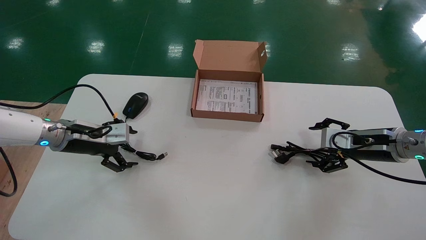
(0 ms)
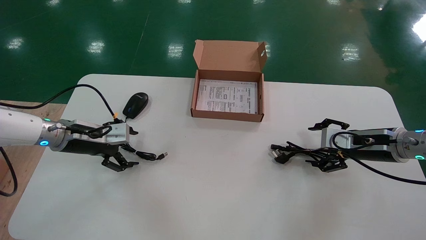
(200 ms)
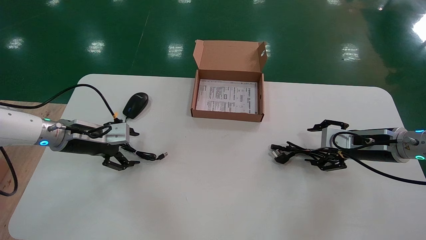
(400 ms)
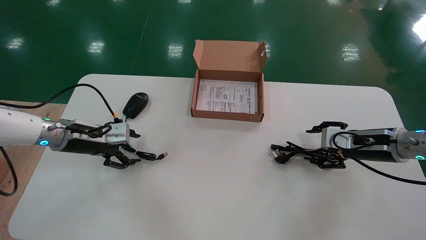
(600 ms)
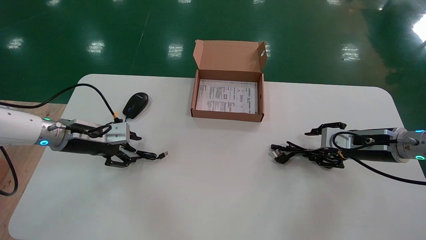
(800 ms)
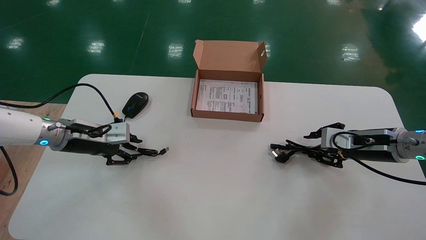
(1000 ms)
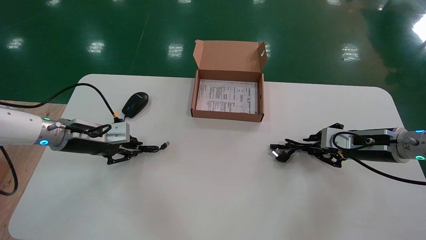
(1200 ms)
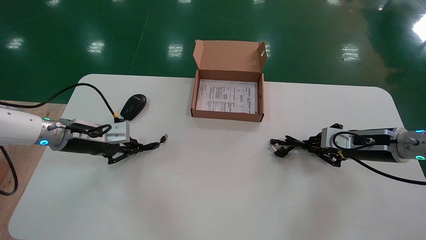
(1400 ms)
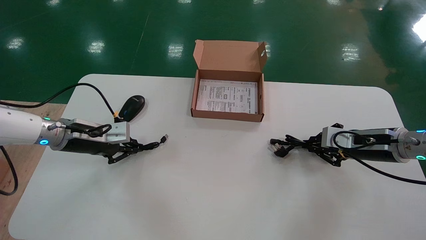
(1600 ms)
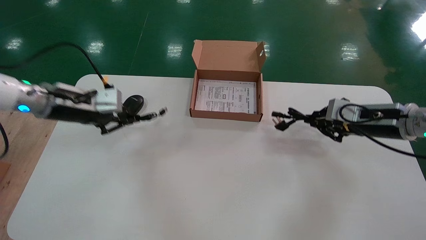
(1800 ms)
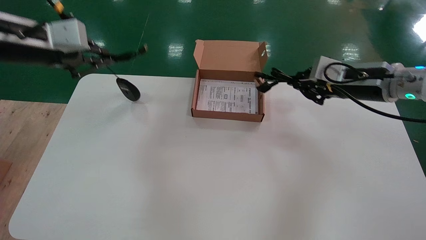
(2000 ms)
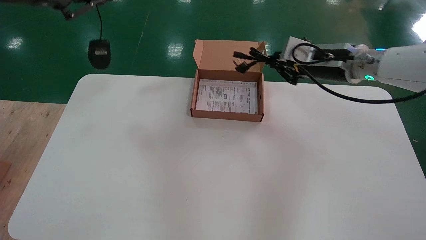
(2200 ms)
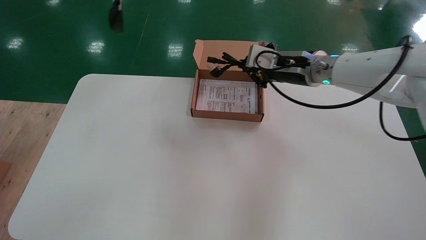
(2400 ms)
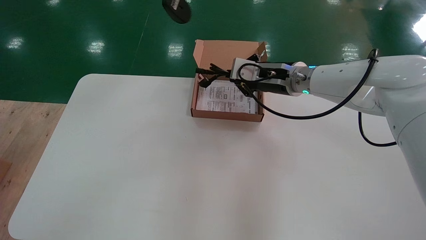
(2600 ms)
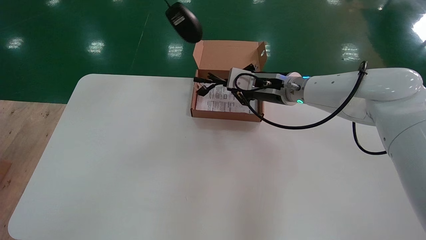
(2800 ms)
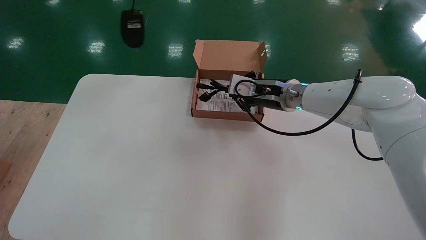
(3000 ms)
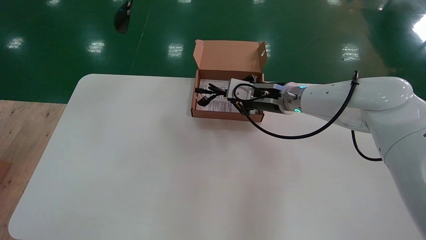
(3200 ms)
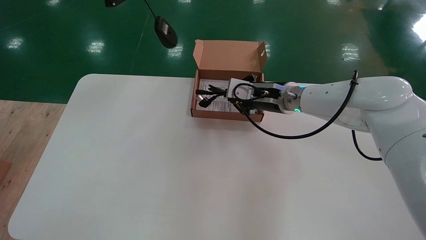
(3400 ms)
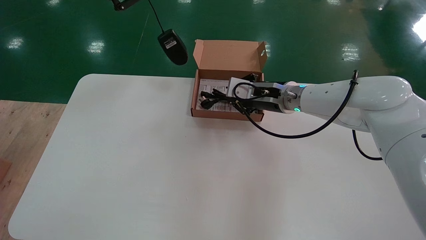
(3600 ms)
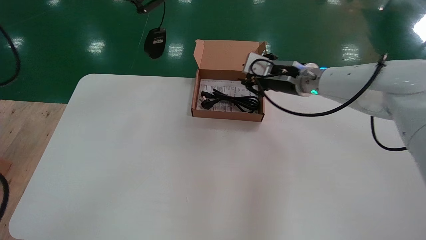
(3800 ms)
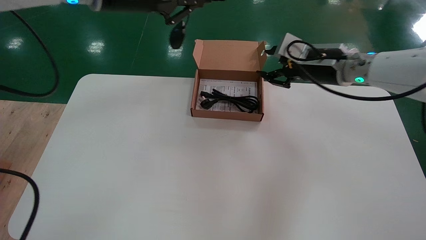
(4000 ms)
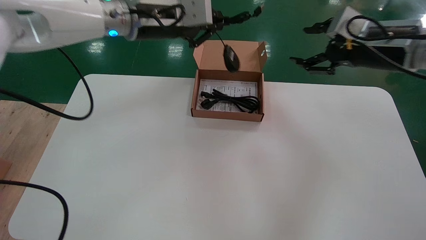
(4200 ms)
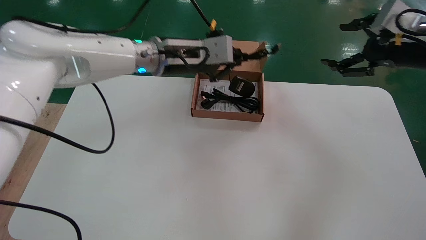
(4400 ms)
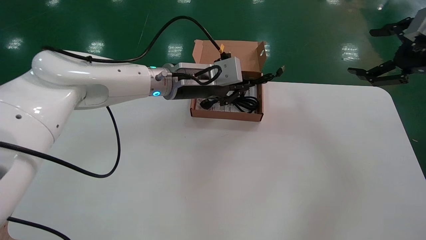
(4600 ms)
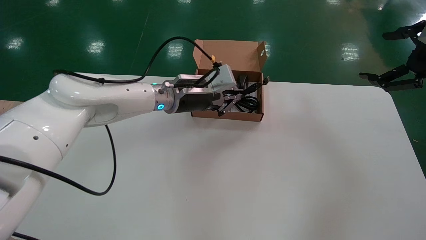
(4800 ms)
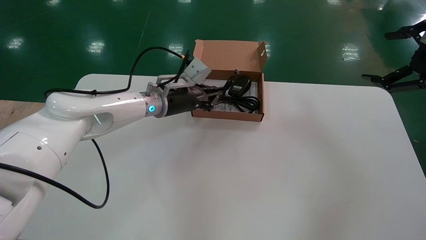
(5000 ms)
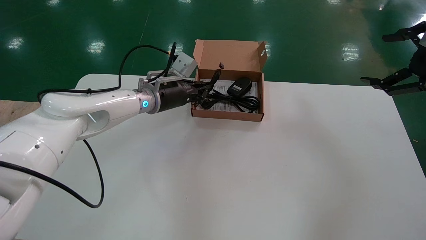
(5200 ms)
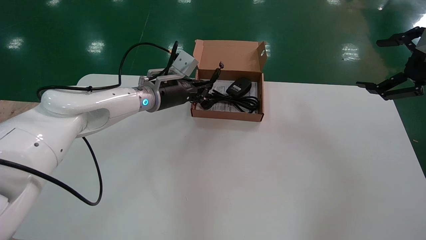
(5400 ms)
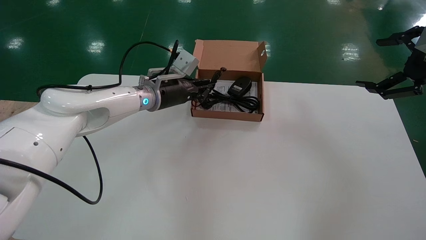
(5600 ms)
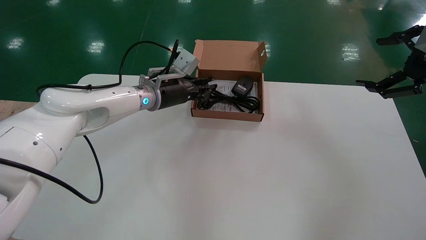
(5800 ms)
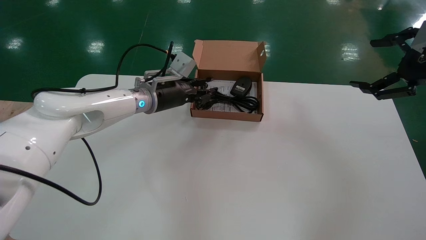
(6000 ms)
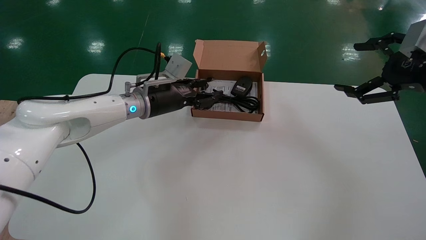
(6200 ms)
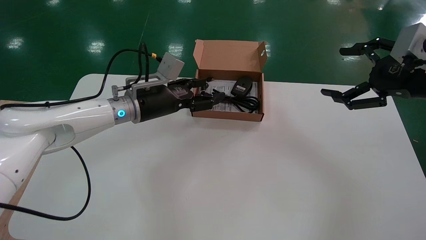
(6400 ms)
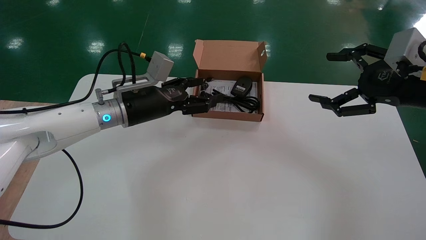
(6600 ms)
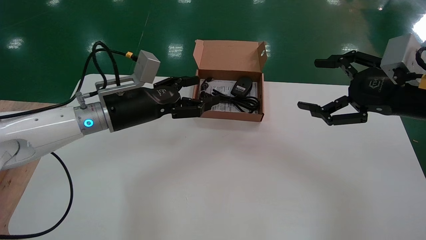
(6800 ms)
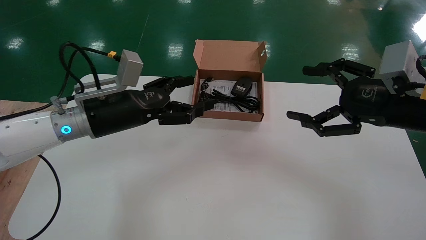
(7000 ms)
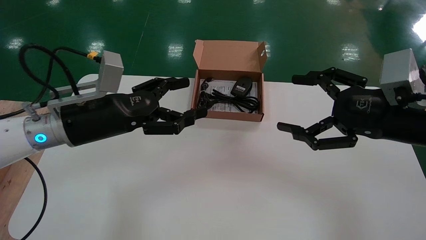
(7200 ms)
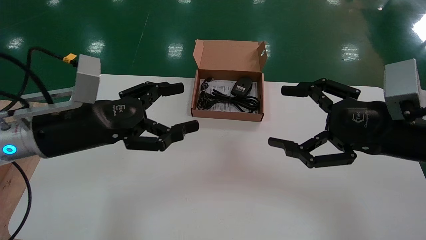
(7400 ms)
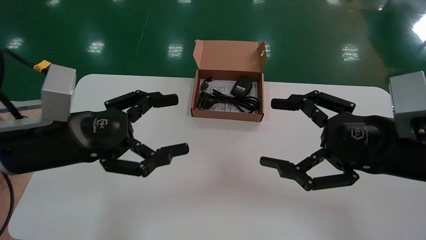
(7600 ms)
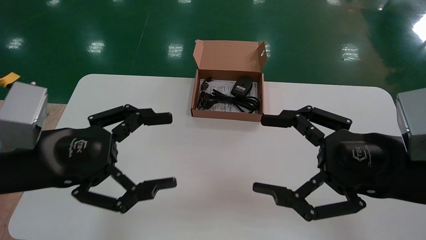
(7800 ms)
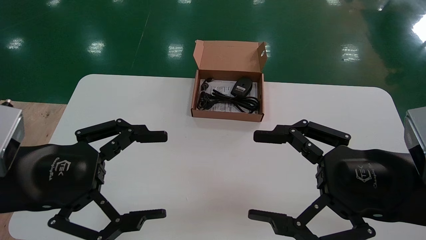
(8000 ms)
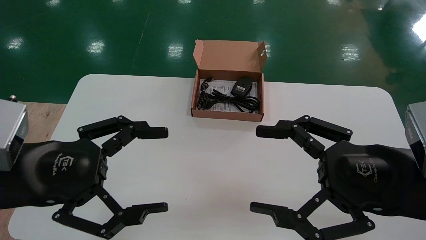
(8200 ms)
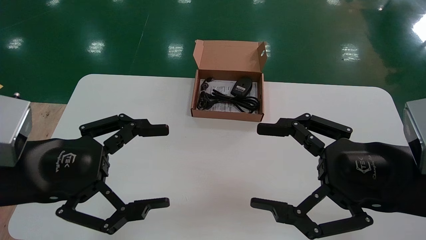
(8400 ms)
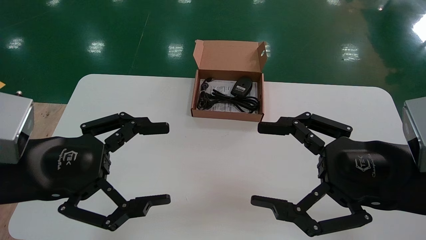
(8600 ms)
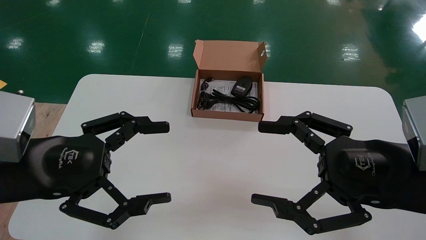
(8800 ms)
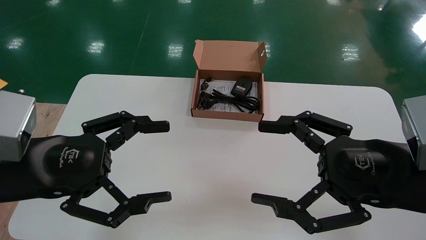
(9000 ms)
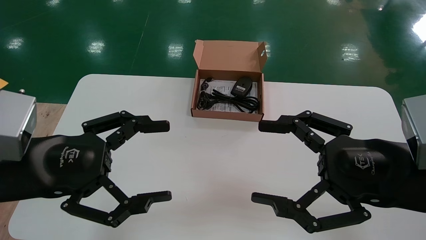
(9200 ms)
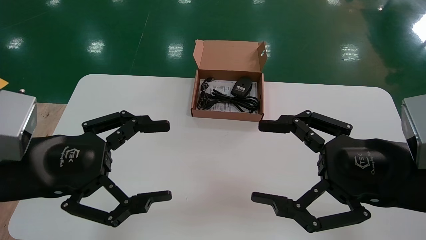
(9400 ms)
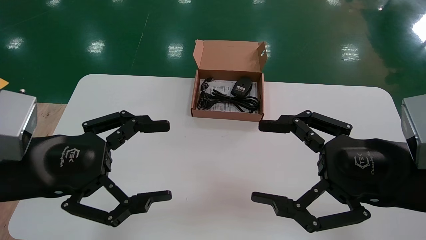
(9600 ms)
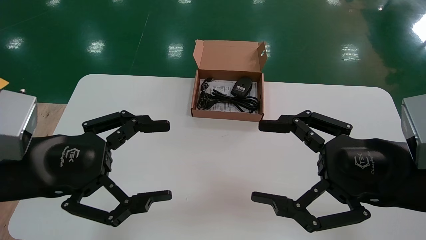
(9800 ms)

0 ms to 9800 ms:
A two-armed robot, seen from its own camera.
Step, 1800 ms to 6000 ms: Place the mouse and power cord into the box.
0 ms to 1400 ms: The left gripper closes its fingers. The right gripper closes.
1400 ms to 2800 ms: The left gripper goes some 35 cm upward. Meanwhile the right gripper heads to the left and upward, covering some 25 cm.
2800 ms to 4200 ms: The left gripper goes approximately 20 cm to the right, downward and forward. The right gripper heads to the right, upward and backward, covering some 20 cm, and opens.
4200 ms to 5600 ms: The right gripper moves to the right and backward, about 15 cm, and opens. The left gripper heads downward and forward, covering roughly 15 cm.
5600 ms to 7000 ms: The left gripper is displaced backward and to the left by approximately 15 cm, and opens up, while the right gripper goes roughly 10 cm to the left and downward.
7000 ms to 8400 ms: The right gripper shifts some 10 cm backward and to the left. The left gripper is displaced backward by roughly 15 cm.
8400 ms to 9800 ms: Both grippers stay put.

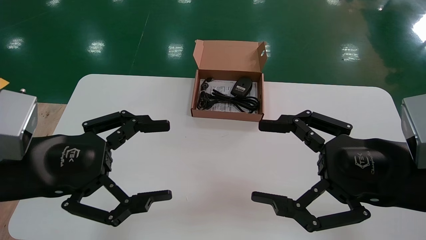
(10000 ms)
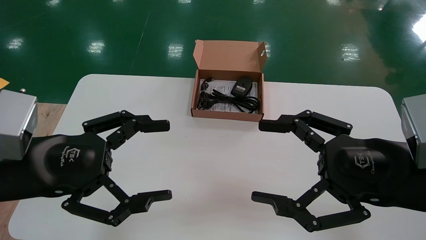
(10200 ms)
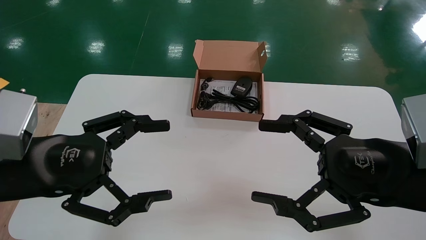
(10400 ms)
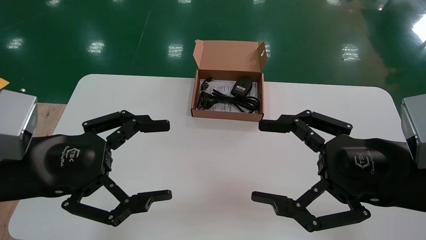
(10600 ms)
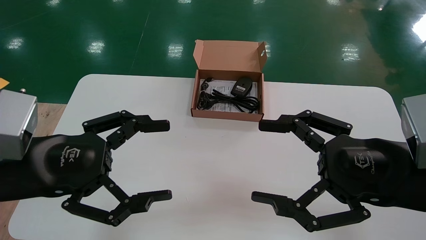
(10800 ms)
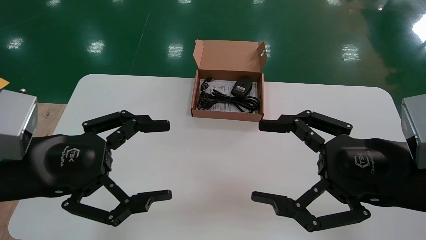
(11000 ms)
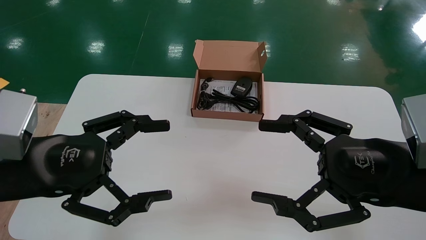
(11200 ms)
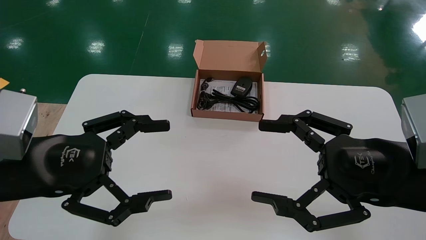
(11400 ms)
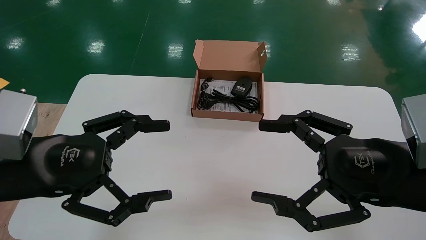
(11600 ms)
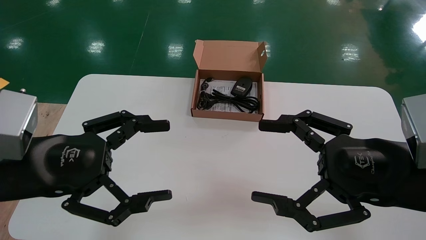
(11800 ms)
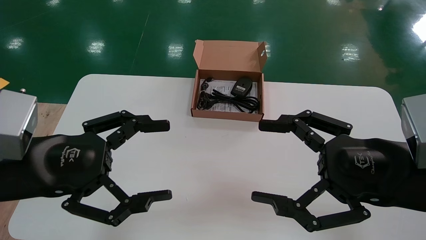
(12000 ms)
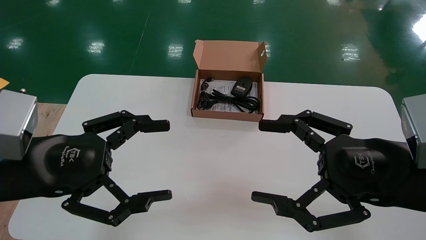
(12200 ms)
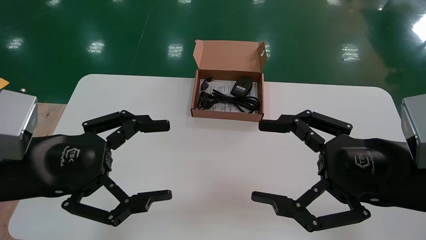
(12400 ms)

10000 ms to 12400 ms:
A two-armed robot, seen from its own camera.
10000 ms to 12400 ms: The two grippers keep their place.
